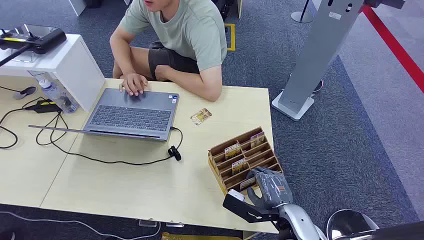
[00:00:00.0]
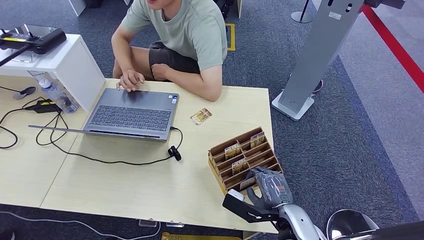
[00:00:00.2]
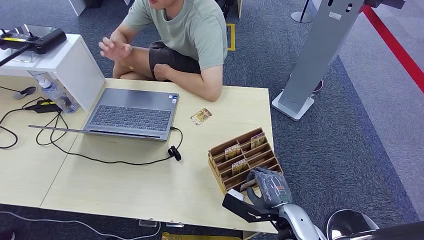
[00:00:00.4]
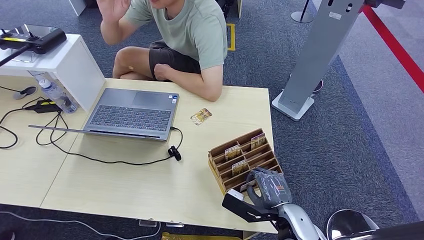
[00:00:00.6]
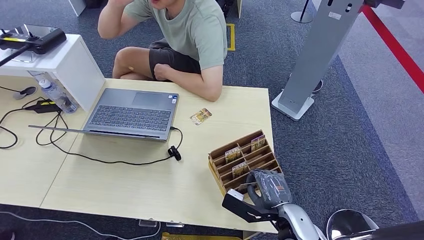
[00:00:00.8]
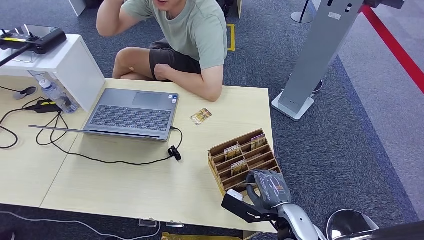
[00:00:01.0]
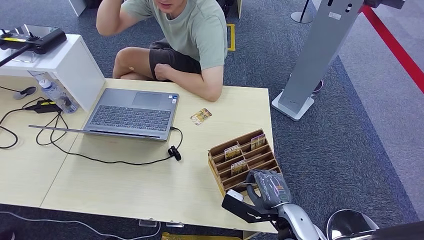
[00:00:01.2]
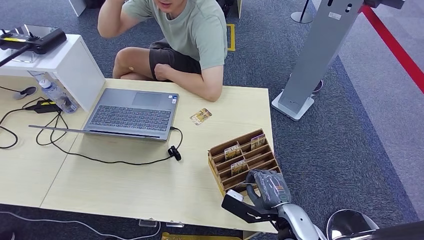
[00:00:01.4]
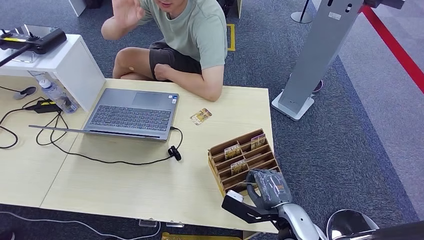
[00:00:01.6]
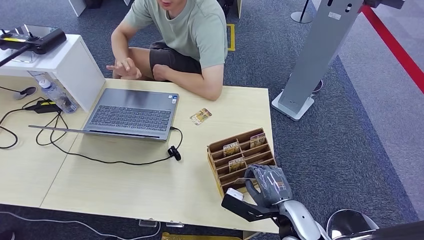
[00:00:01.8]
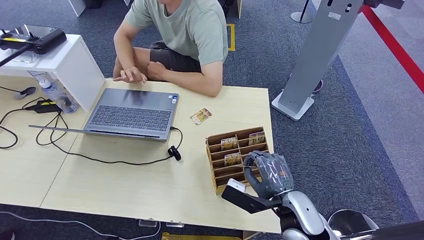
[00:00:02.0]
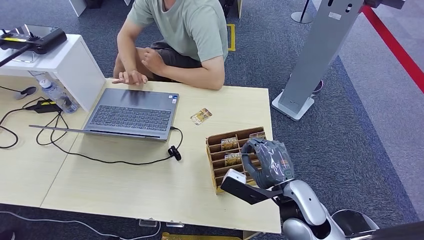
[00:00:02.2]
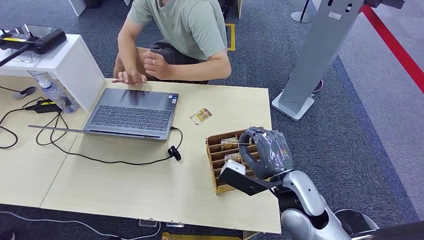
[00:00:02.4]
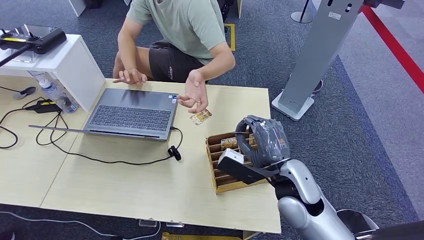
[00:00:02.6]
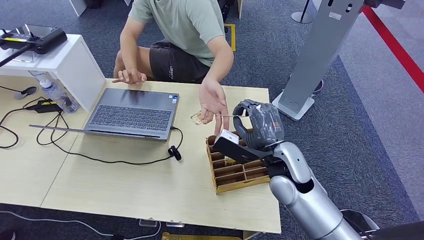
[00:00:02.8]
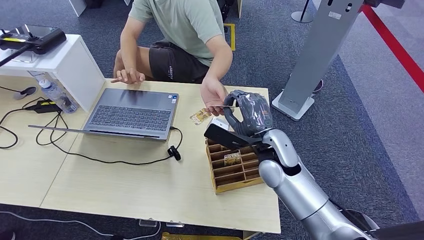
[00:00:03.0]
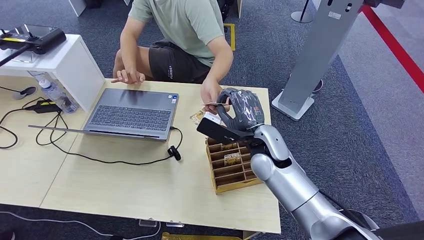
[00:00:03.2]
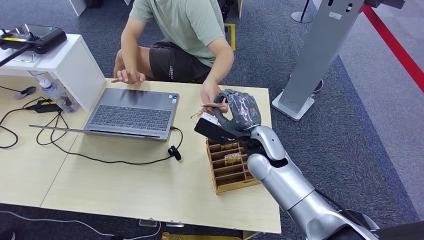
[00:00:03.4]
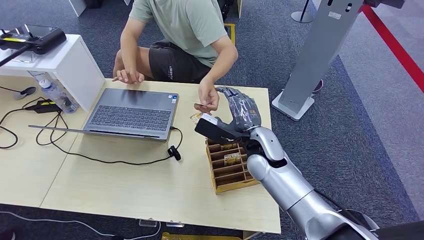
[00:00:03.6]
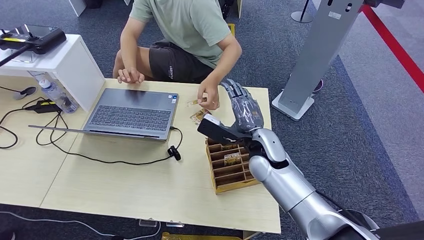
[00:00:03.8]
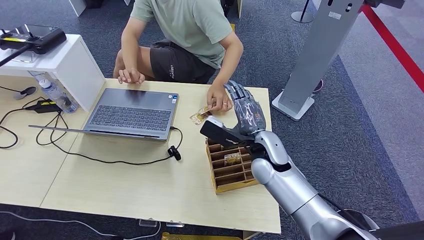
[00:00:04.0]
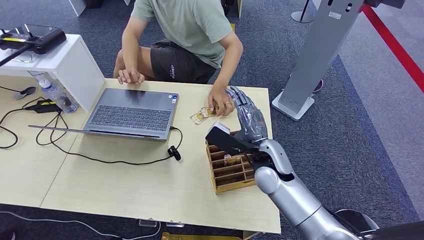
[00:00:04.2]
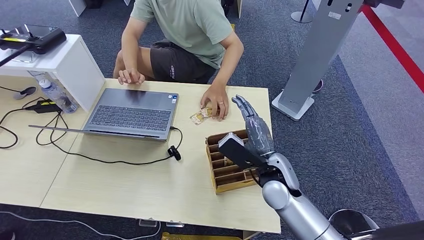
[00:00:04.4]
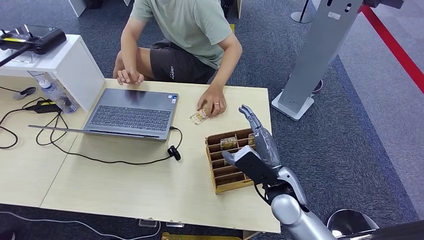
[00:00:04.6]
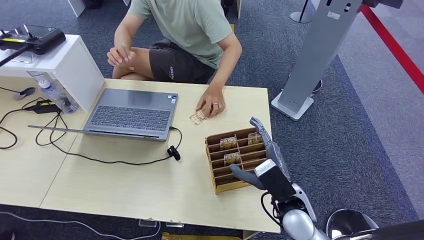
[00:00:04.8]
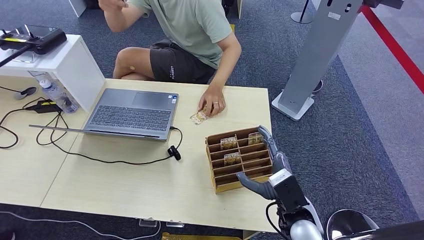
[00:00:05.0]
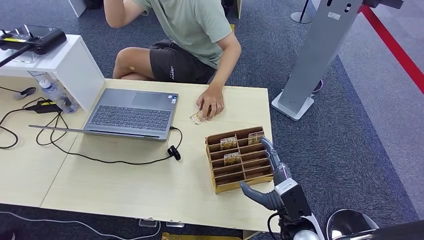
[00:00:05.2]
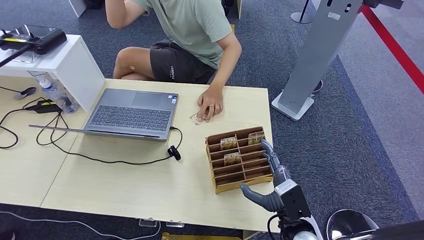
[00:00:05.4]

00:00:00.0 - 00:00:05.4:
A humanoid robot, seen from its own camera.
Step, 00:00:00.0 - 00:00:02.4: Pick up the key card from the card box.
Step, 00:00:02.6 - 00:00:05.4: Hand the key card to the target.
00:00:01.4 - 00:00:02.8: The right hand is displaced upward and forward by some 15 cm.
00:00:02.8 - 00:00:04.0: The right hand changes place by some 5 cm.
00:00:04.0 - 00:00:05.4: The right hand is displaced backward, downward and to the right by approximately 20 cm.

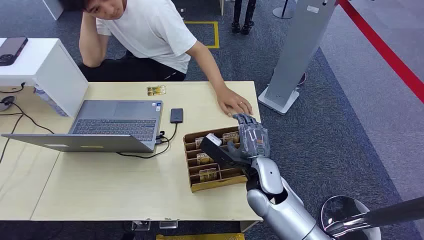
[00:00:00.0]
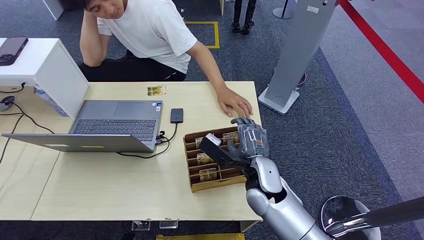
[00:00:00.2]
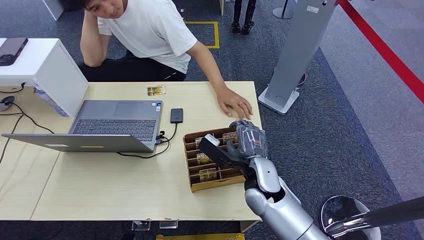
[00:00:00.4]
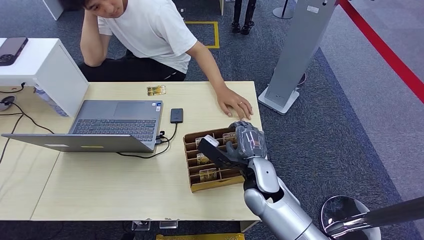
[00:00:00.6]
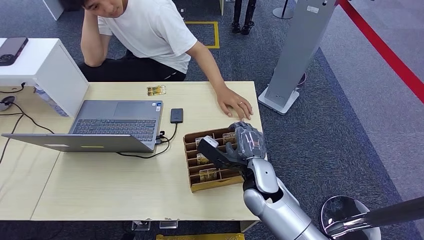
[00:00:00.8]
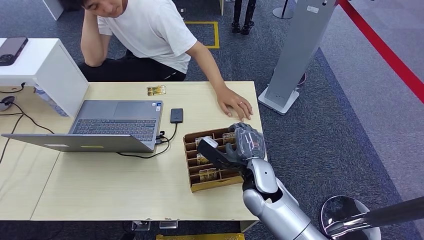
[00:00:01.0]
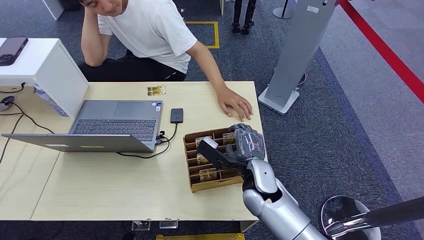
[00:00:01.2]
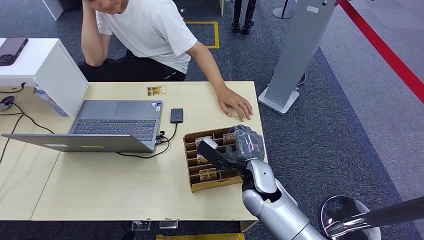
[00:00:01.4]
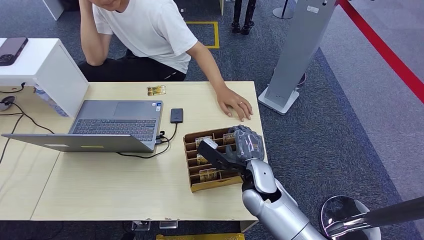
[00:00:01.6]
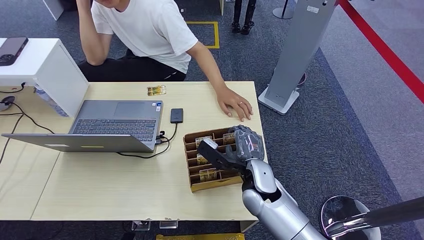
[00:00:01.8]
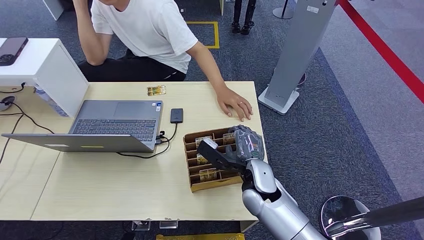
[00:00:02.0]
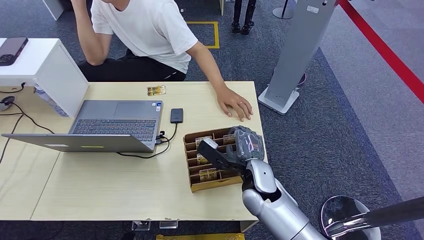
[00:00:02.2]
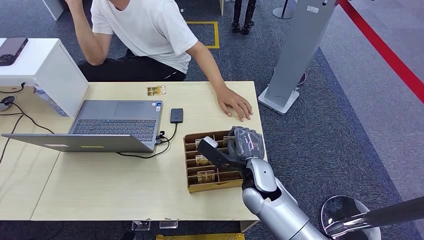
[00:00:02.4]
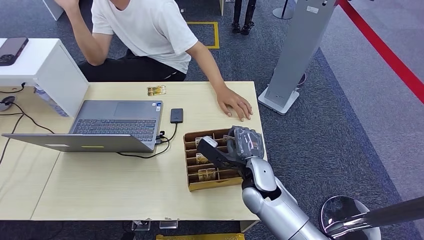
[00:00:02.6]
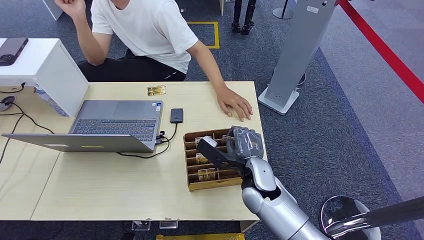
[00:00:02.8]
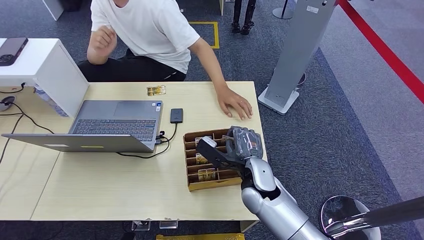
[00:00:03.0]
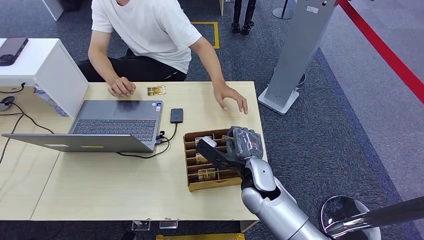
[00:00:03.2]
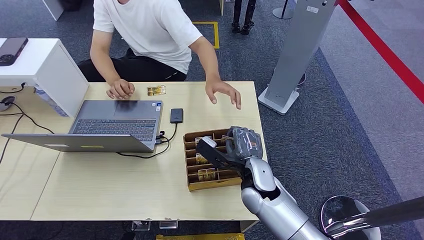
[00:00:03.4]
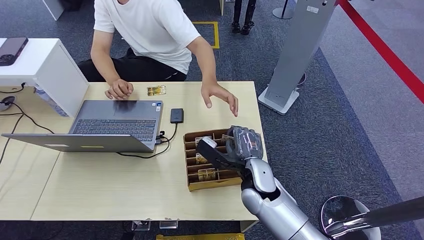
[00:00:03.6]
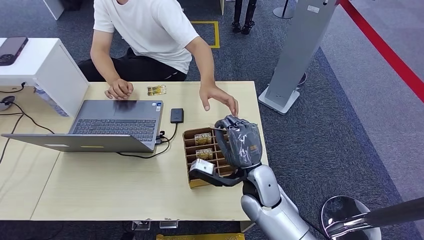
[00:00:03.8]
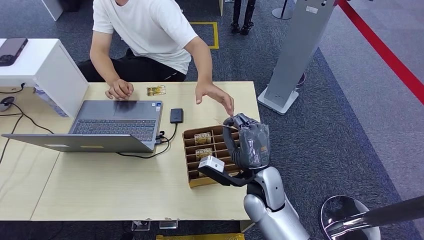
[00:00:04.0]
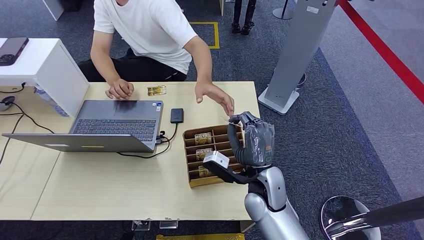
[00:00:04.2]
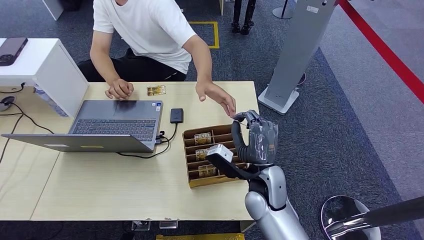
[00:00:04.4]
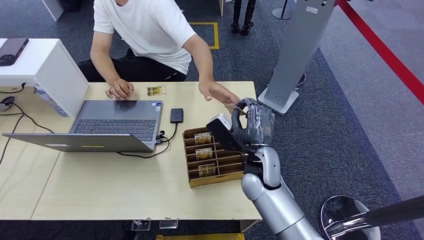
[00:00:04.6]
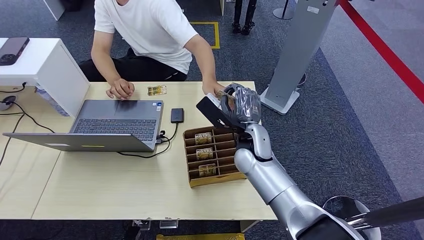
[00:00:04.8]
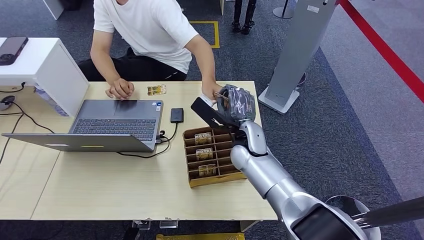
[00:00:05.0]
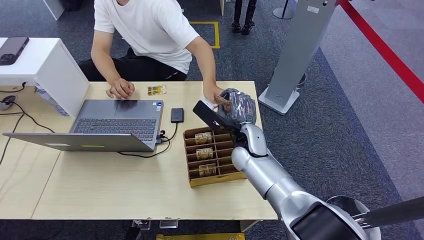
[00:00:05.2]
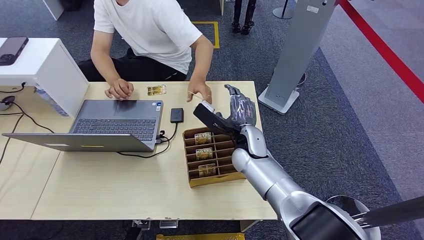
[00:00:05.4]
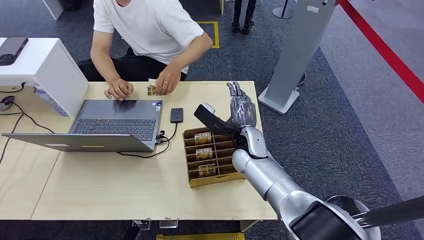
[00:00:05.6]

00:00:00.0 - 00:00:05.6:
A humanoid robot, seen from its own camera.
Step, 00:00:00.0 - 00:00:03.4: Pick up the key card from the card box.
Step, 00:00:03.8 - 00:00:05.4: Hand the key card to the target.
00:00:01.4 - 00:00:02.8: Both hands stay put.
00:00:04.2 - 00:00:05.6: The right hand shifts about 10 cm forward.
